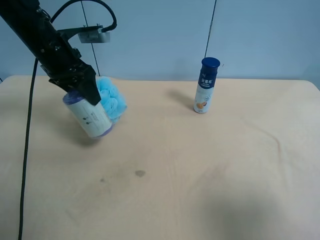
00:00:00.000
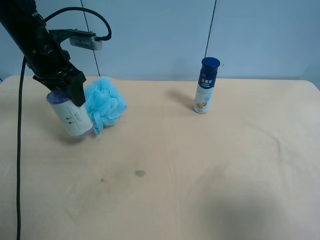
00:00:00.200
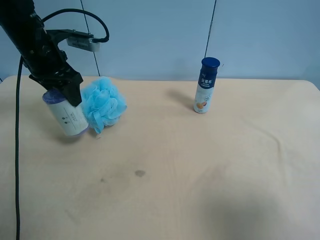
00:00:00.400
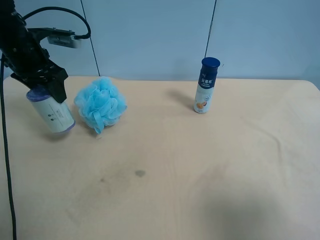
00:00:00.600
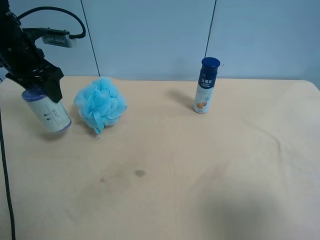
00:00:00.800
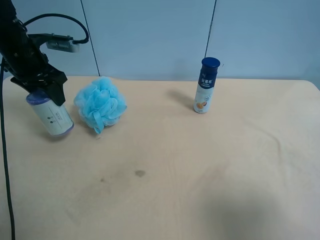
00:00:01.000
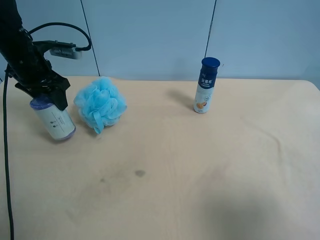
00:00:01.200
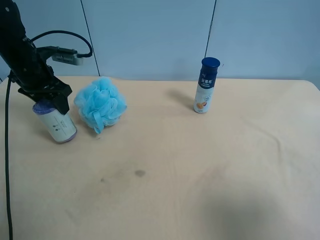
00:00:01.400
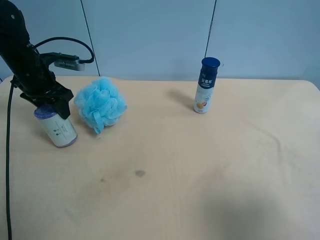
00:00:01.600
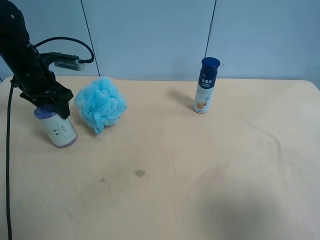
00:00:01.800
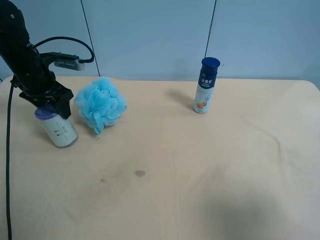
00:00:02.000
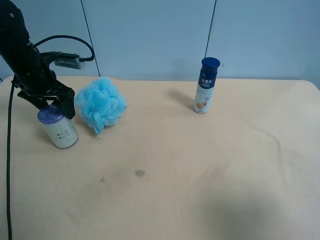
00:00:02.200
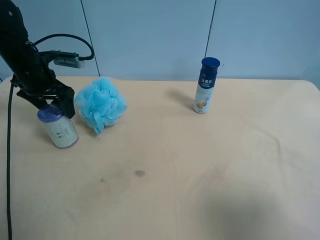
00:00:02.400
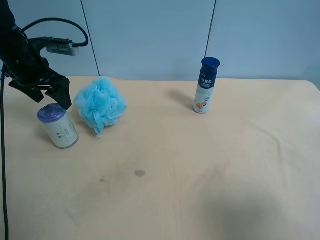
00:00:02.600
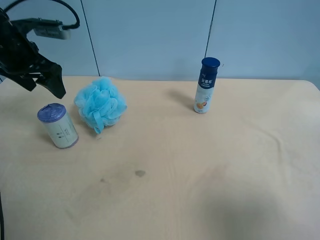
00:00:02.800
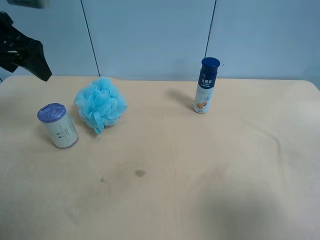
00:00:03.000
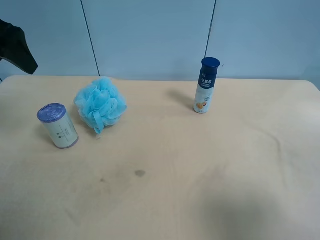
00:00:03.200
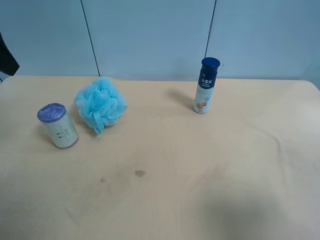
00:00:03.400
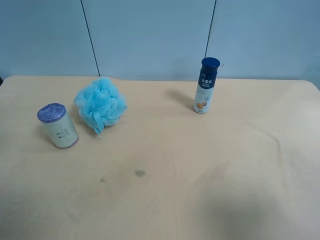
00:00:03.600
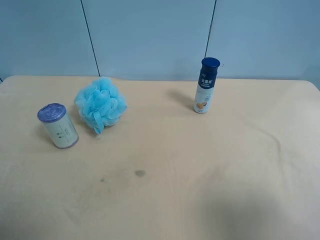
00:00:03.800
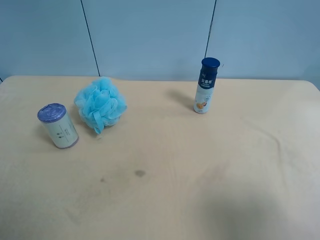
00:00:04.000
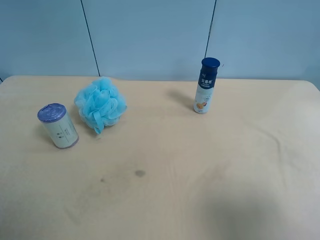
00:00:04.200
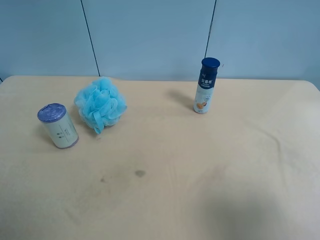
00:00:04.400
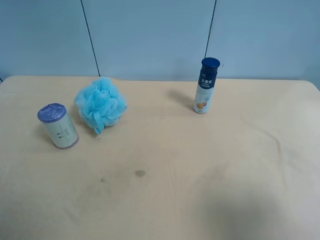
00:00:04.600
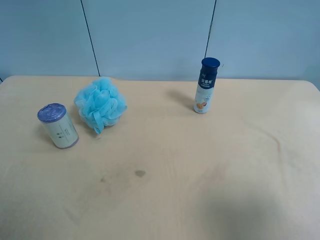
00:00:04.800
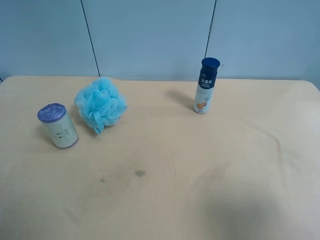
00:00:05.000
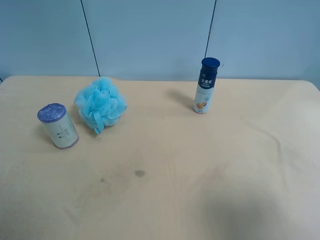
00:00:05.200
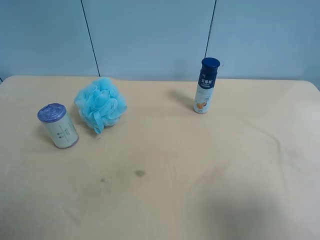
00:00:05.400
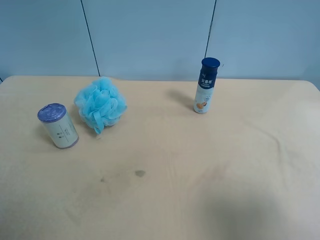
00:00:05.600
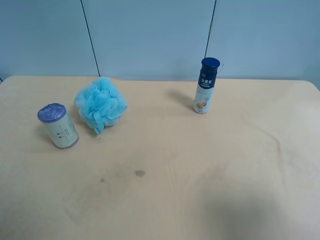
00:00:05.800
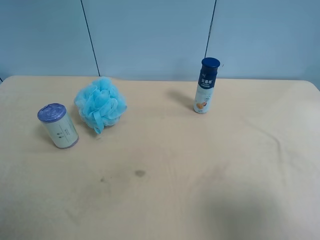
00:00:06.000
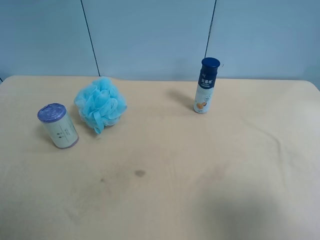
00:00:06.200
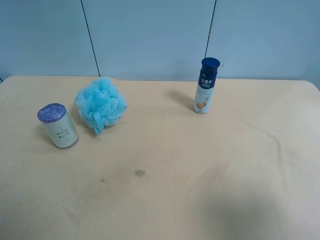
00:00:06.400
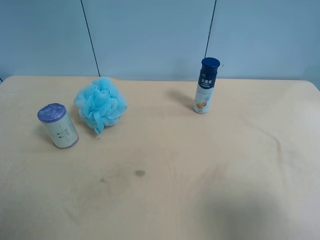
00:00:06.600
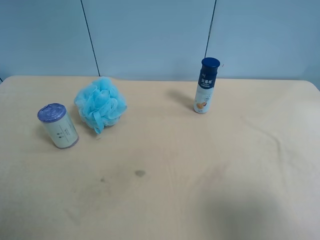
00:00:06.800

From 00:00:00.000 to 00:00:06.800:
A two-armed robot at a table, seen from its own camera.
Task of the whole recording: use the right gripper to pick up the item and transfer it from the right gripper to the left gripper.
From 00:00:00.000 to 00:00:01.400: The left gripper heads to the left and downward, covering some 10 cm.
From 00:00:01.400 to 00:00:02.800: The left gripper moves upward, roughly 5 cm, and opens its fingers.
From 00:00:02.800 to 00:00:04.000: The left gripper heads backward, covering about 25 cm.
